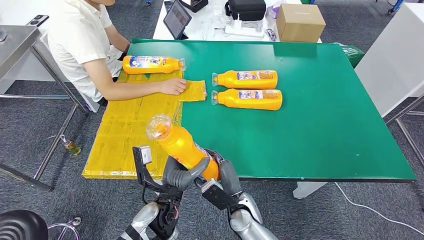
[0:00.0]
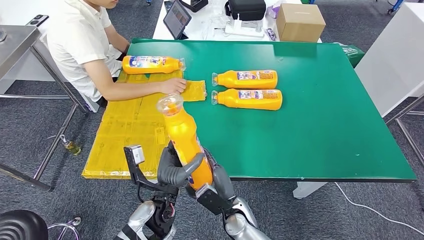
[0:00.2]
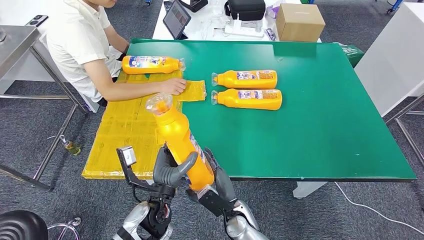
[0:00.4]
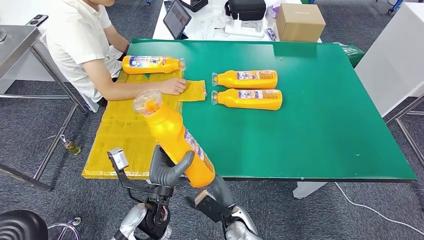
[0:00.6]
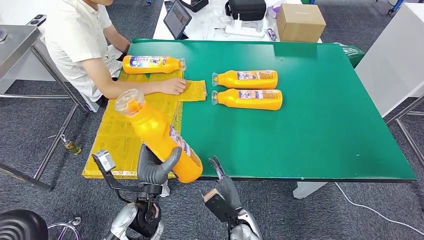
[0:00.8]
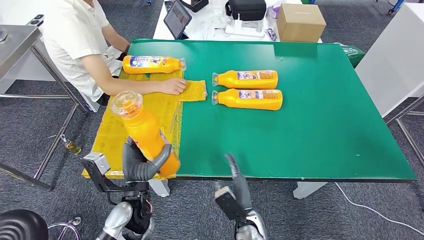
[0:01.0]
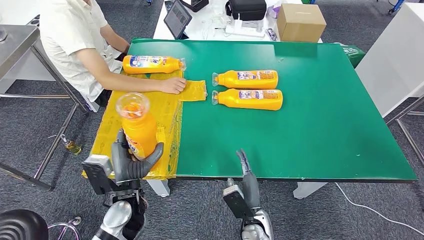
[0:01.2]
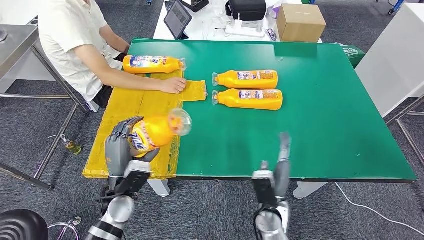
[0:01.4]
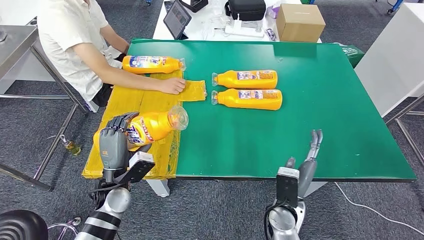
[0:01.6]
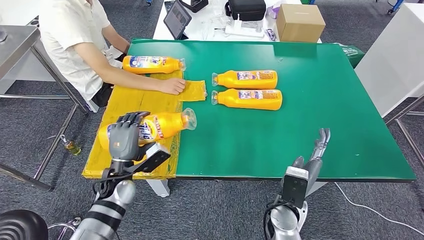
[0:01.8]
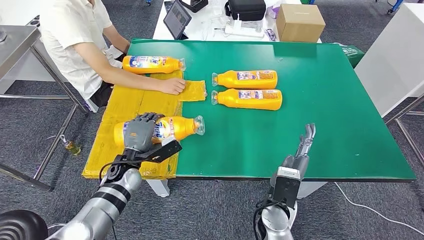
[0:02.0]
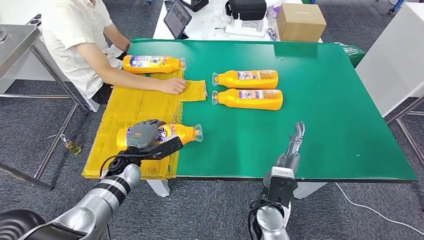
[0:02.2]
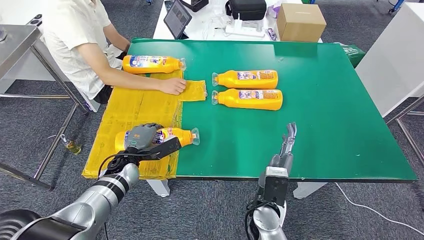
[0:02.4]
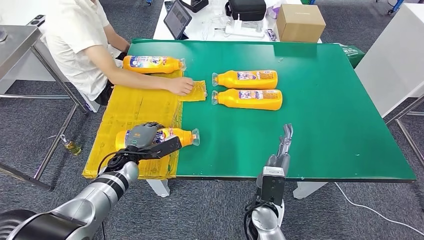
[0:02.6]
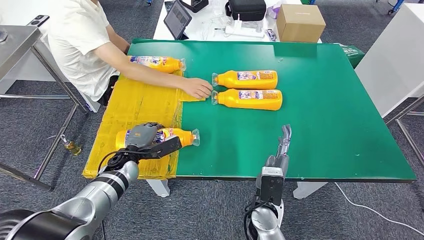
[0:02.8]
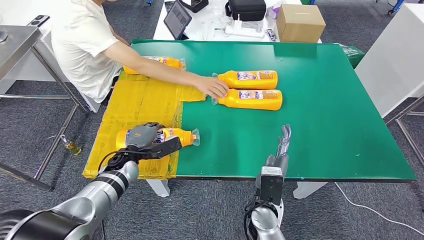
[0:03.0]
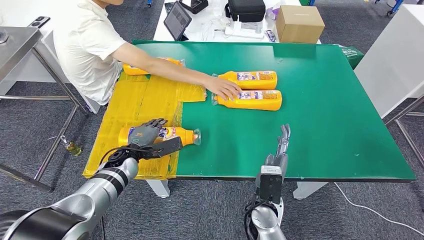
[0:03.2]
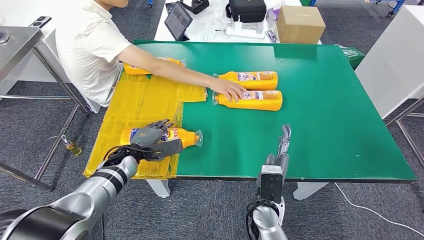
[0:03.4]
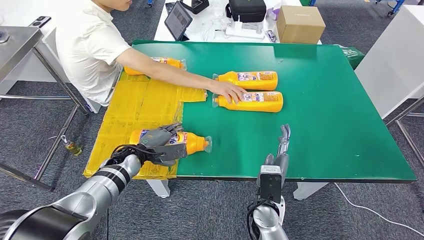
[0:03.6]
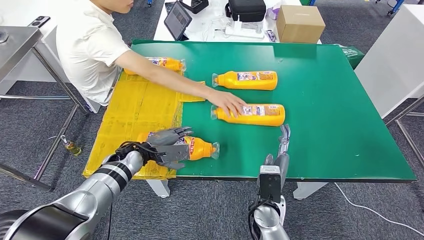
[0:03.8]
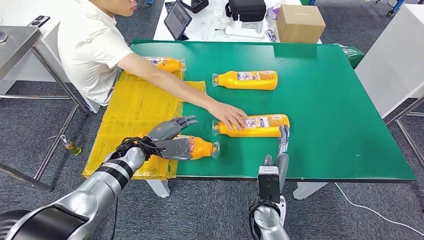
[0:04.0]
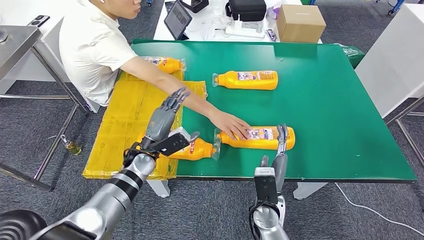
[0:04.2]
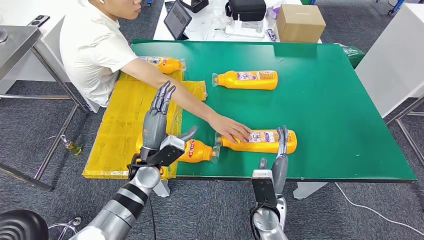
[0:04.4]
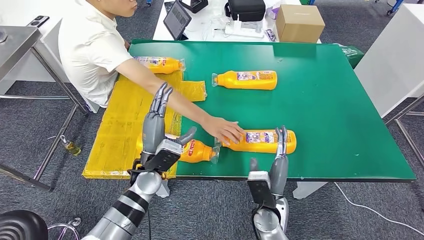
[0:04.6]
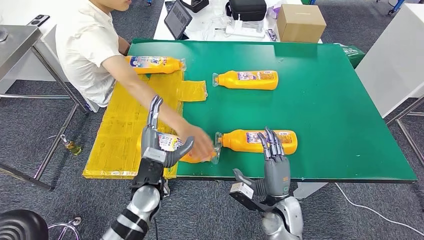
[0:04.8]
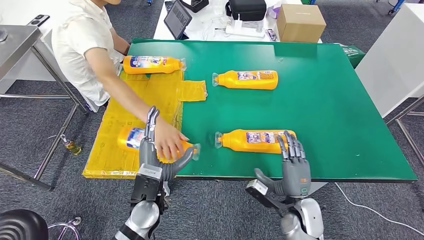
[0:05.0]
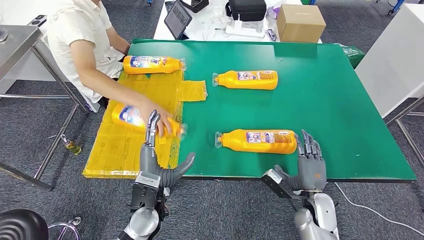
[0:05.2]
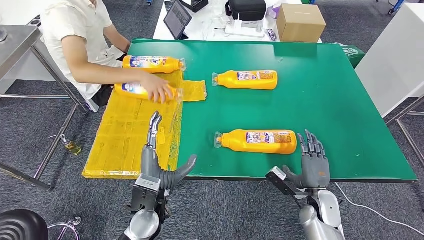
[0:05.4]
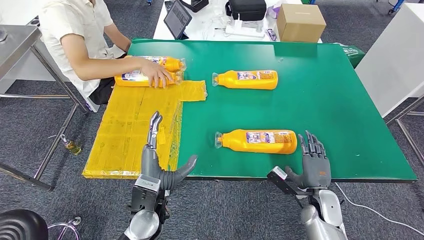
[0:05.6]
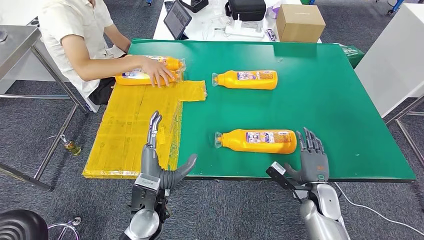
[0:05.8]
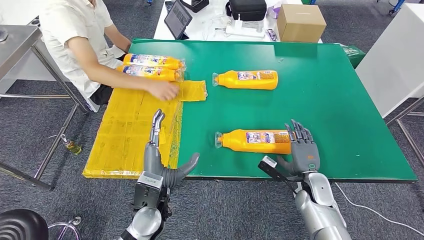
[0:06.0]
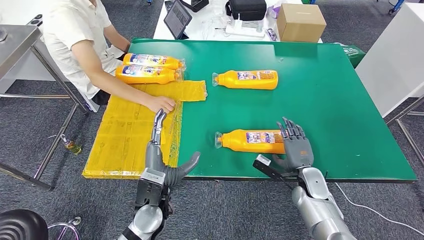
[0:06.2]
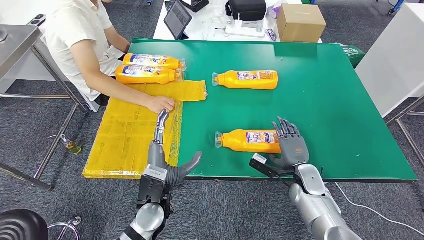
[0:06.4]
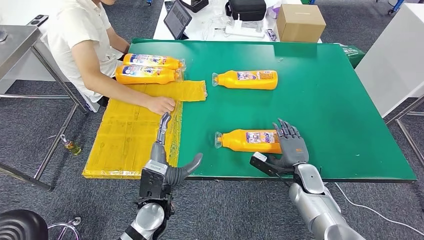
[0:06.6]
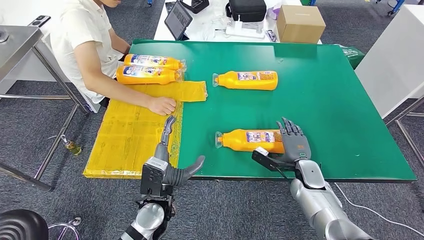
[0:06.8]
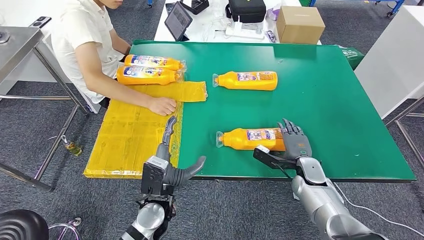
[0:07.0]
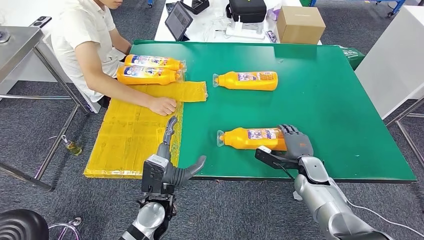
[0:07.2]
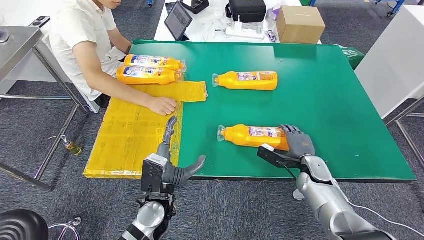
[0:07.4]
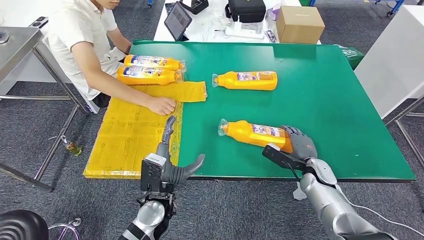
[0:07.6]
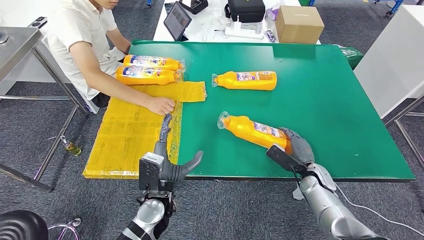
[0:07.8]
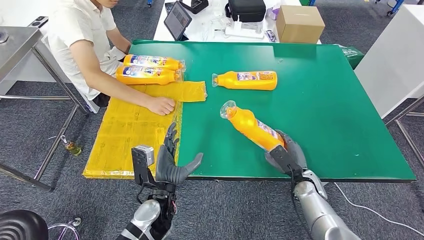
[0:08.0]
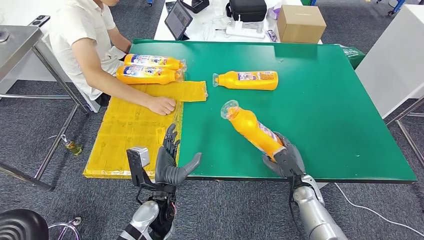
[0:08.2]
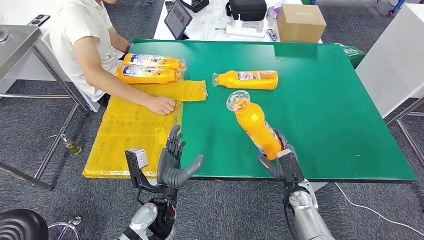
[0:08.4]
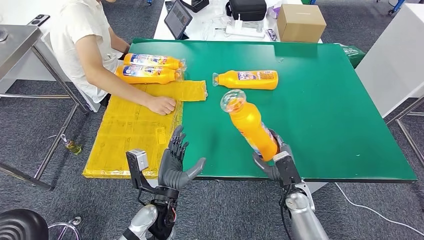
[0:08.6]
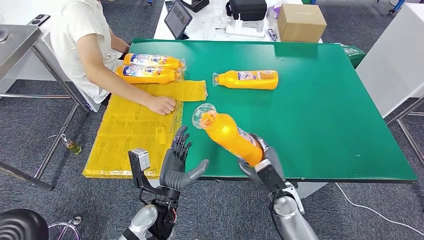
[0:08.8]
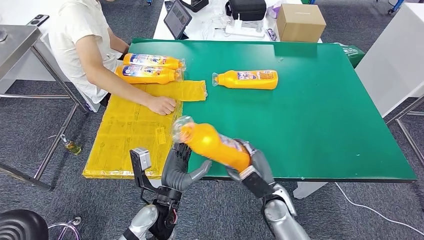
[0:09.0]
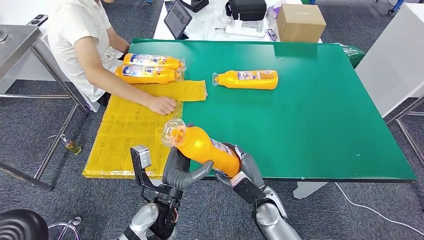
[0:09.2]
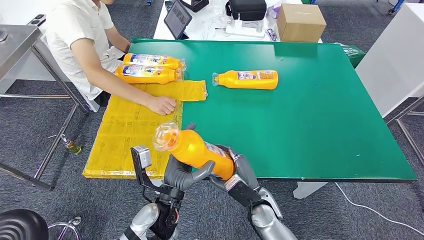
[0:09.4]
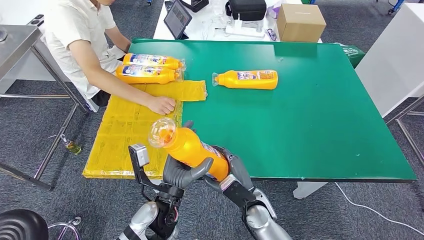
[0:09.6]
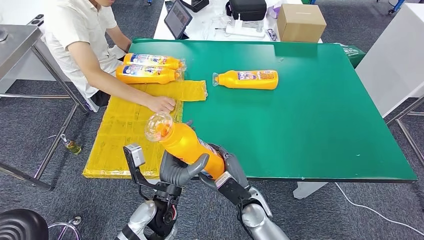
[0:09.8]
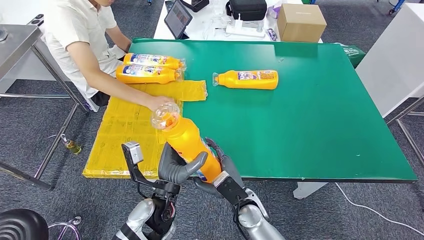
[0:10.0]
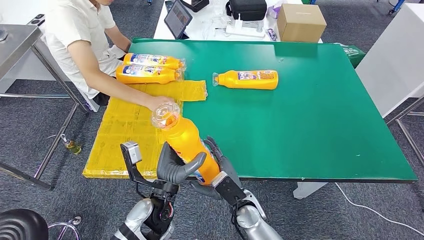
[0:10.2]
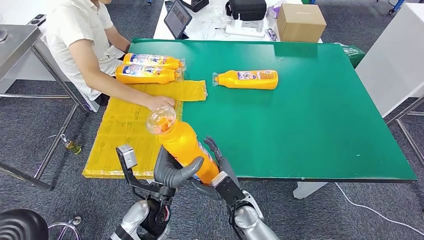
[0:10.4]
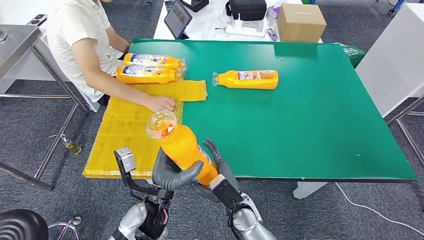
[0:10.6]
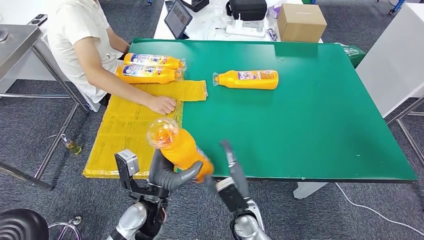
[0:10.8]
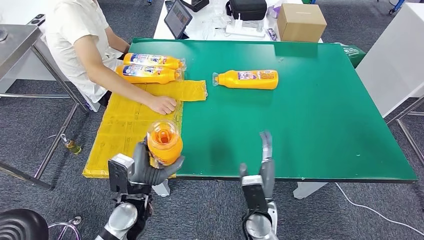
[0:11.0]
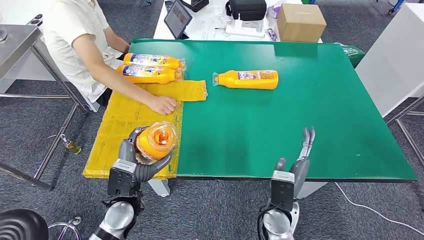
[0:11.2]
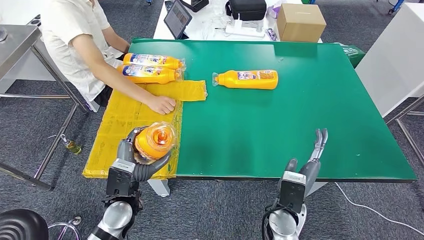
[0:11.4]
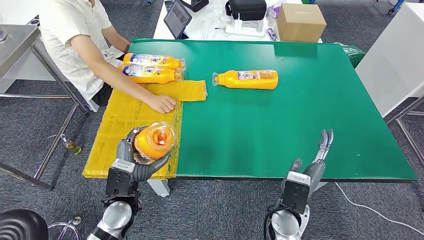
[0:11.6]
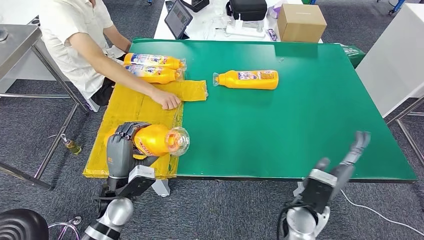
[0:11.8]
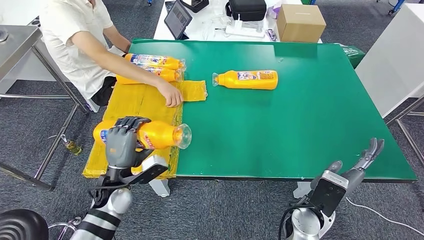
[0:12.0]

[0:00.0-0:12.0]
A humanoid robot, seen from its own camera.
Step, 0:01.6 to 0:05.4: Flip the fast-moving consumer goods bottle to the front side.
Step, 0:05.6 to 0:09.4: Pick up the fast-moving consumer goods bottle from the table.
0:00.0 to 0:01.6: The right hand heads to the right and upward, covering roughly 10 cm; the left hand moves to the left and forward, approximately 15 cm.
0:01.6 to 0:03.0: The right hand moves to the left, roughly 5 cm, while the left hand travels forward by roughly 10 cm.
0:09.0 to 0:10.4: The right hand is displaced to the left by roughly 10 cm.
0:10.4 to 0:12.0: The right hand moves to the right and upward, some 15 cm. The left hand is displaced to the left and forward by some 15 cm.

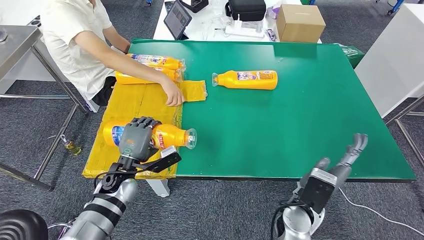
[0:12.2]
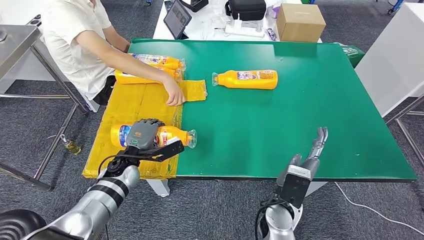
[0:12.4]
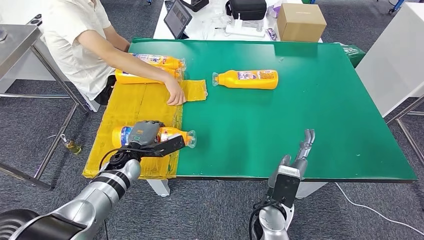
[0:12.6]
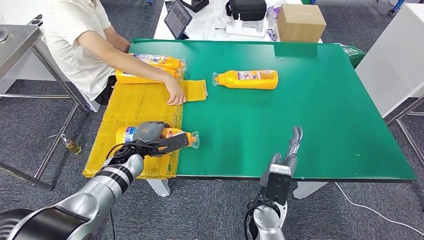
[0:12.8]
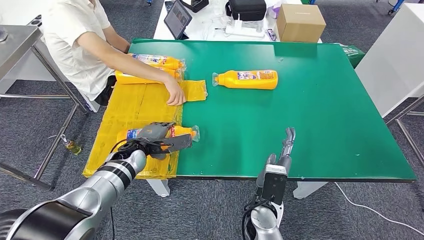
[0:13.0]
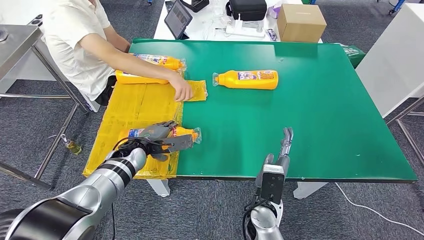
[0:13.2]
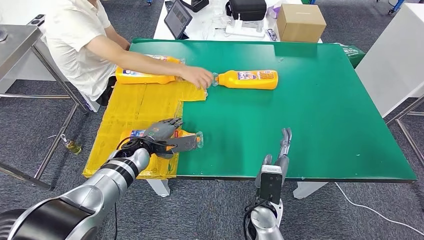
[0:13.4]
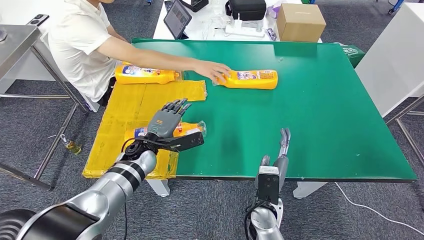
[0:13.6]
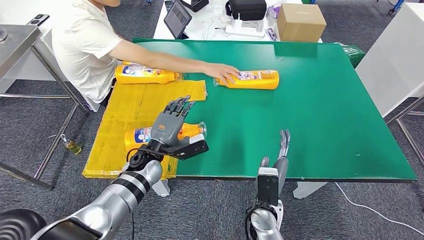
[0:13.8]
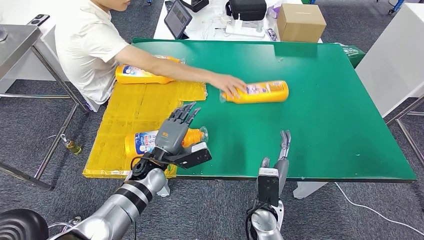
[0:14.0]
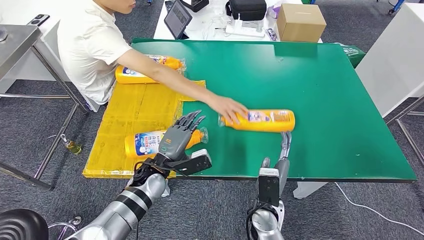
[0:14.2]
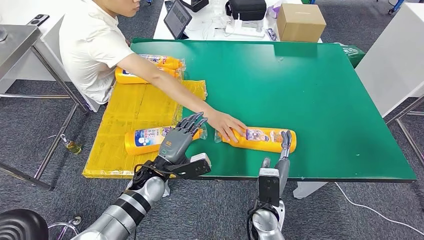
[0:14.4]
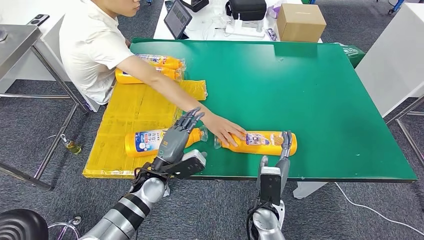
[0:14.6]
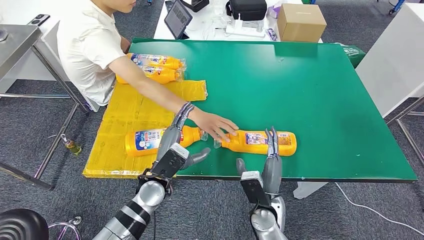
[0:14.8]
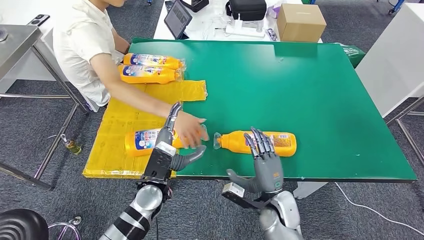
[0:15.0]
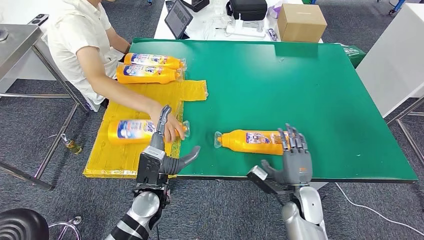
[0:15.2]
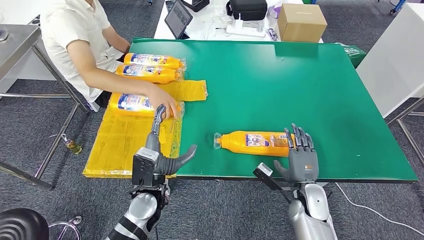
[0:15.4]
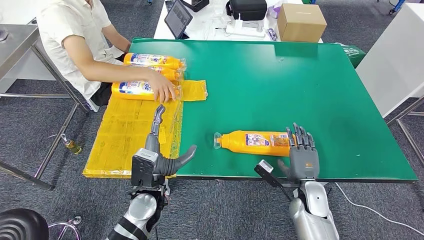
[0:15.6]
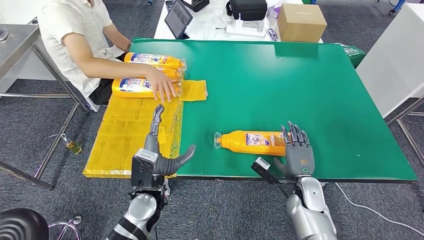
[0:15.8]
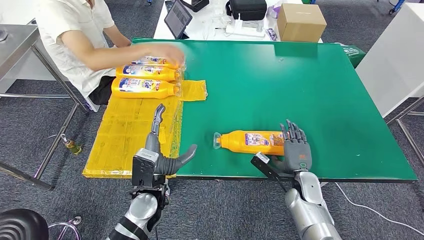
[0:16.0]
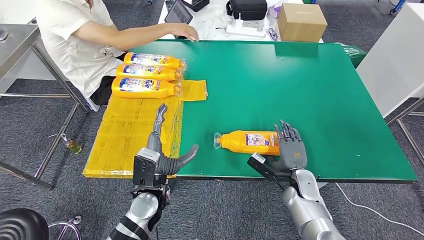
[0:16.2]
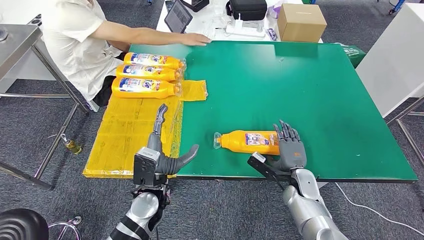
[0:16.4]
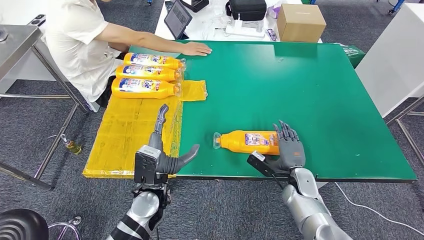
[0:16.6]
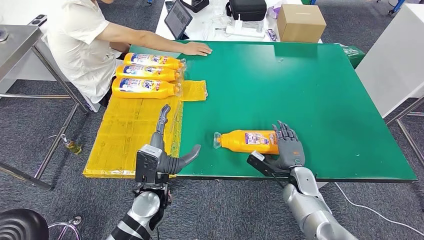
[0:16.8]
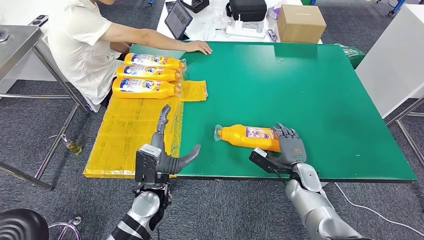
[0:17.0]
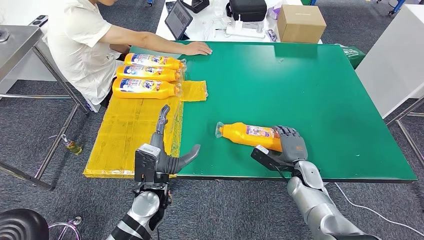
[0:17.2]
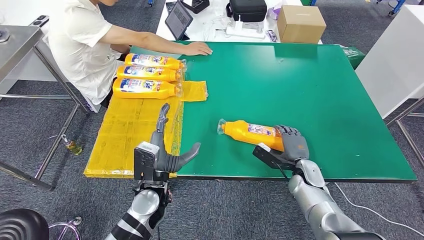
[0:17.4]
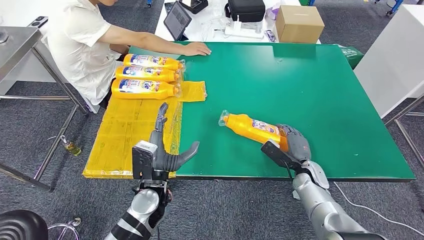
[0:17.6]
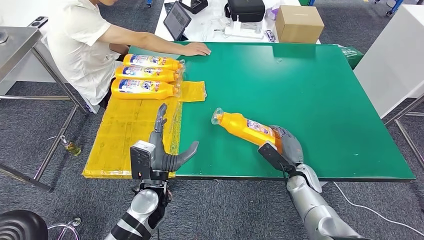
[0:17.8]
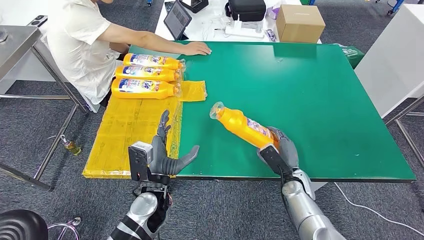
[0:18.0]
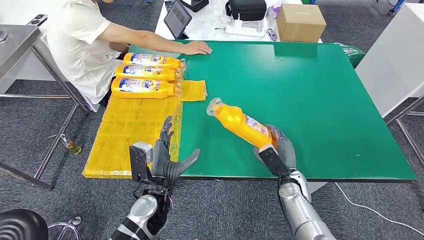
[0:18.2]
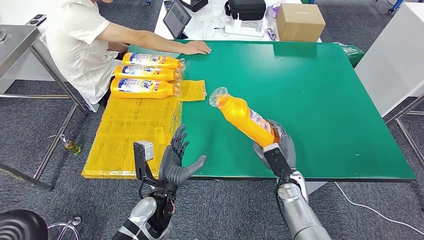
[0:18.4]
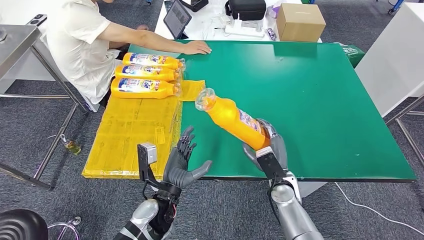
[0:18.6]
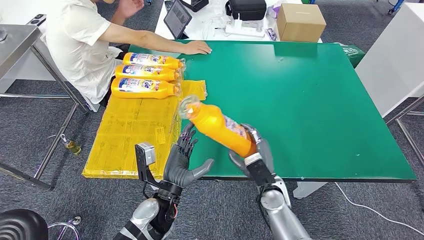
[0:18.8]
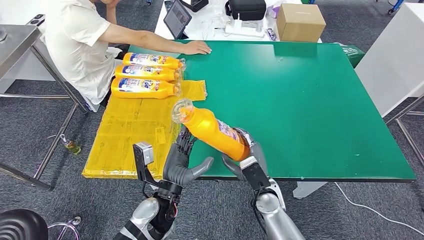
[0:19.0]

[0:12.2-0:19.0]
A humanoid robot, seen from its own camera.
0:12.2 to 0:13.6: The left hand shifts approximately 10 cm forward and to the right; the right hand shifts some 5 cm to the left.
0:17.6 to 0:19.0: The right hand heads to the left and backward, covering roughly 15 cm.
